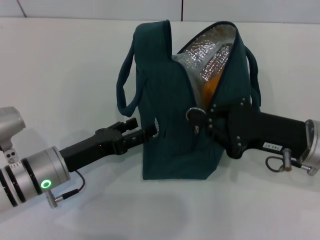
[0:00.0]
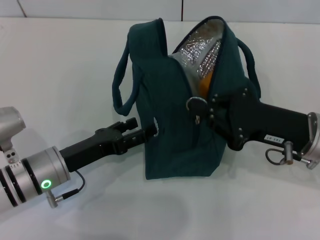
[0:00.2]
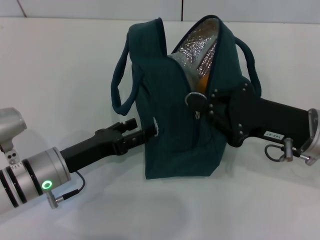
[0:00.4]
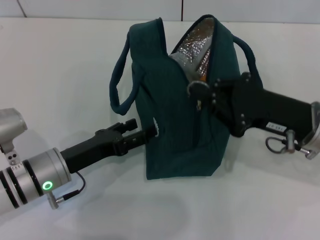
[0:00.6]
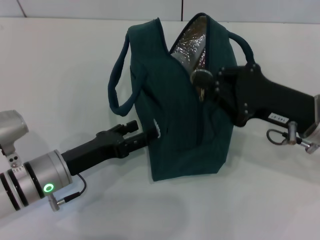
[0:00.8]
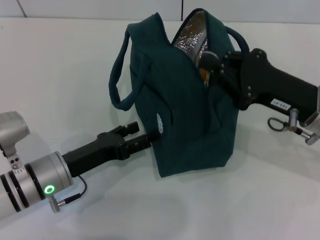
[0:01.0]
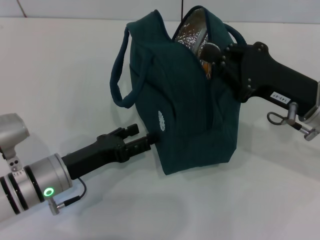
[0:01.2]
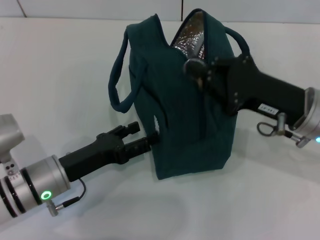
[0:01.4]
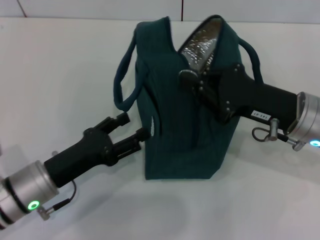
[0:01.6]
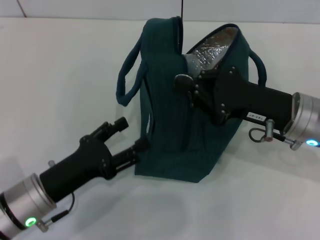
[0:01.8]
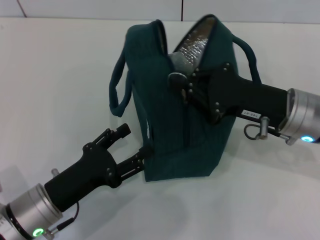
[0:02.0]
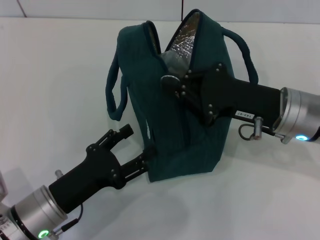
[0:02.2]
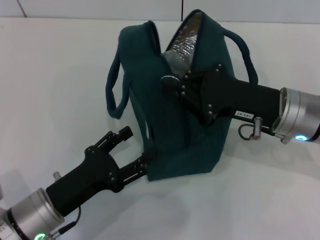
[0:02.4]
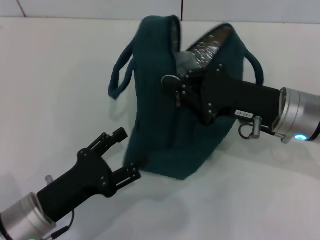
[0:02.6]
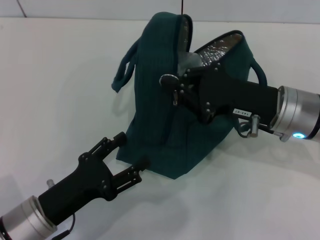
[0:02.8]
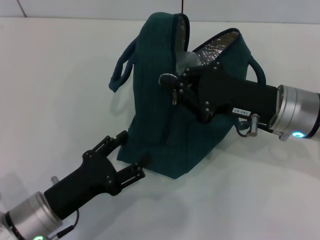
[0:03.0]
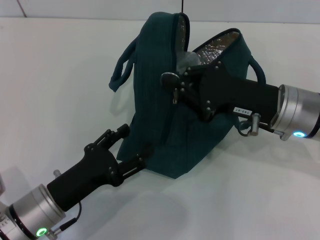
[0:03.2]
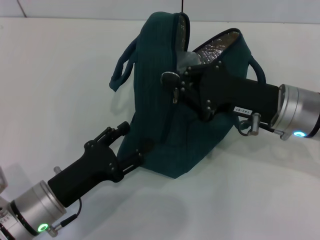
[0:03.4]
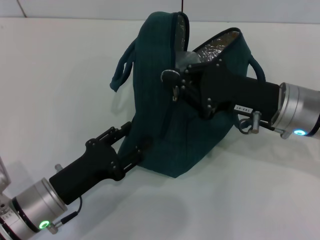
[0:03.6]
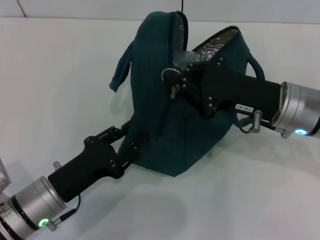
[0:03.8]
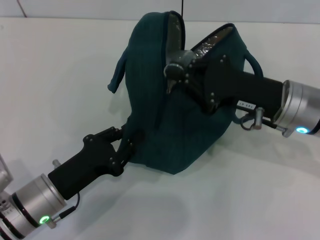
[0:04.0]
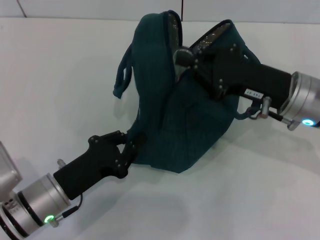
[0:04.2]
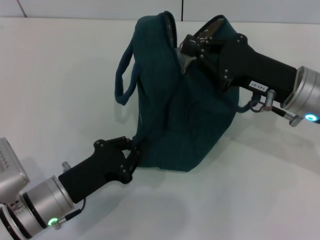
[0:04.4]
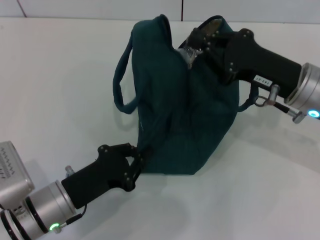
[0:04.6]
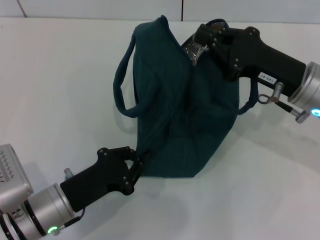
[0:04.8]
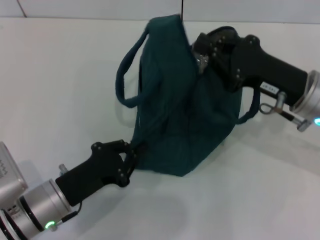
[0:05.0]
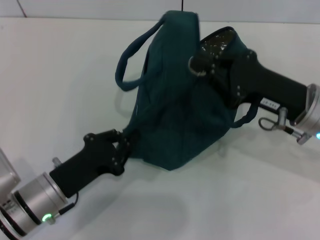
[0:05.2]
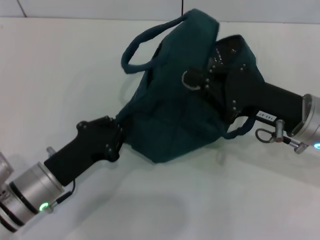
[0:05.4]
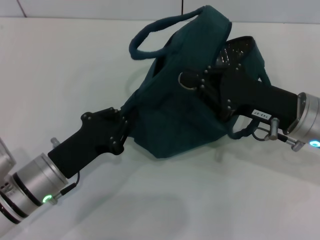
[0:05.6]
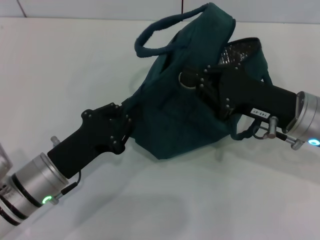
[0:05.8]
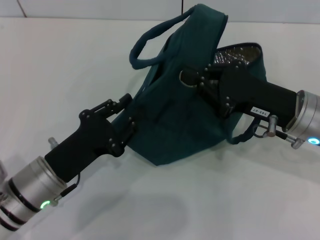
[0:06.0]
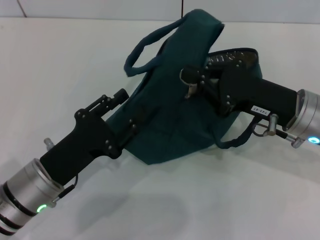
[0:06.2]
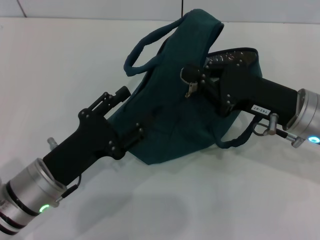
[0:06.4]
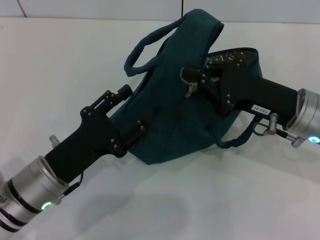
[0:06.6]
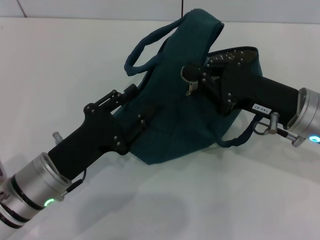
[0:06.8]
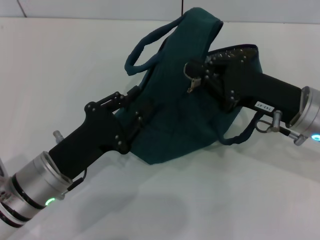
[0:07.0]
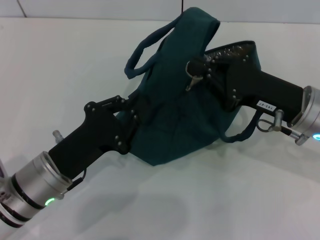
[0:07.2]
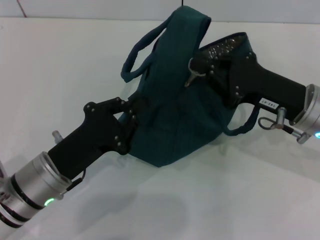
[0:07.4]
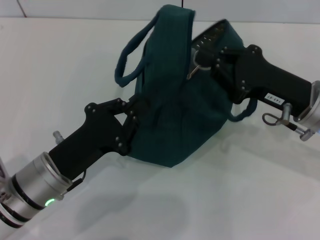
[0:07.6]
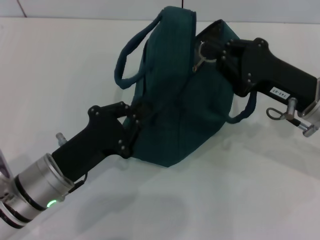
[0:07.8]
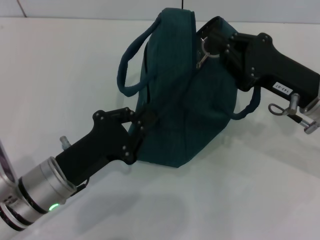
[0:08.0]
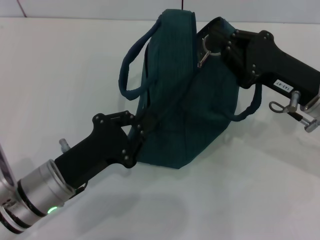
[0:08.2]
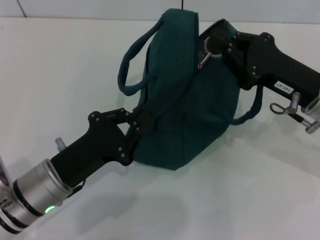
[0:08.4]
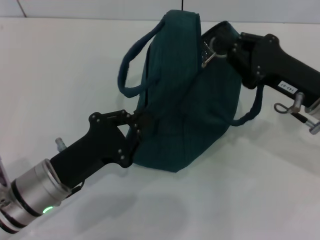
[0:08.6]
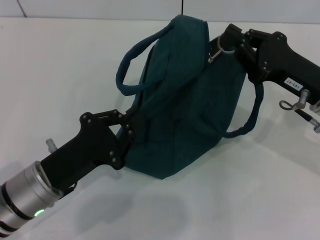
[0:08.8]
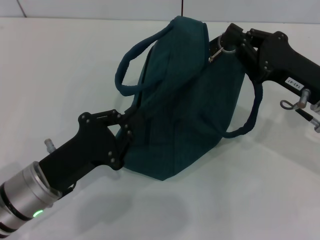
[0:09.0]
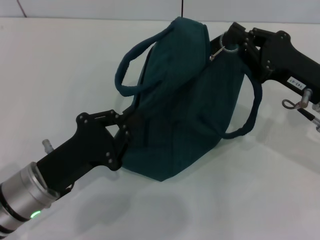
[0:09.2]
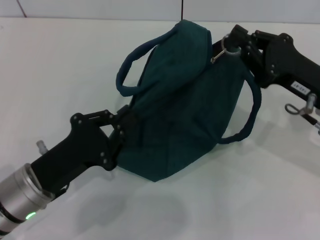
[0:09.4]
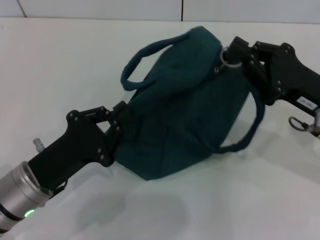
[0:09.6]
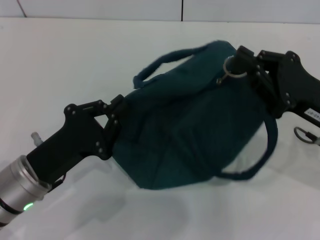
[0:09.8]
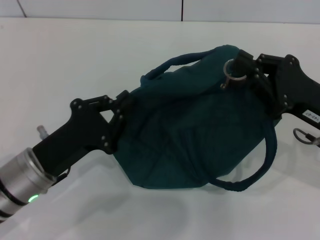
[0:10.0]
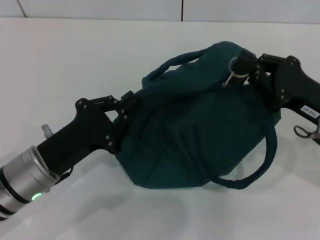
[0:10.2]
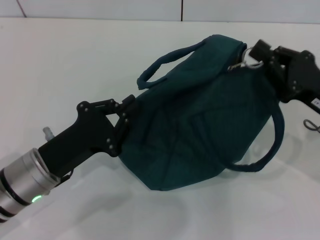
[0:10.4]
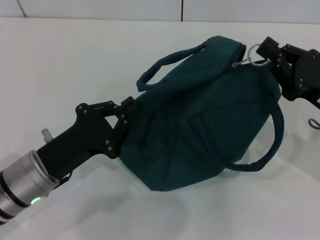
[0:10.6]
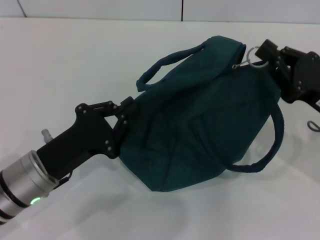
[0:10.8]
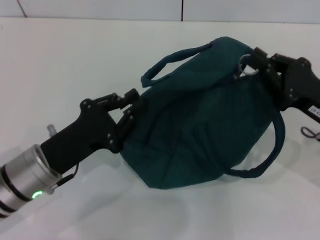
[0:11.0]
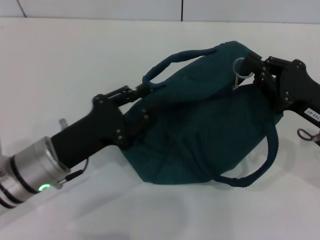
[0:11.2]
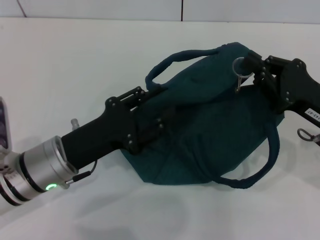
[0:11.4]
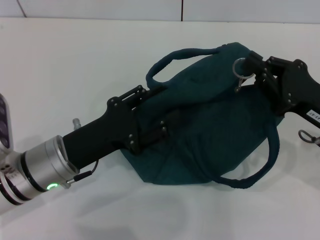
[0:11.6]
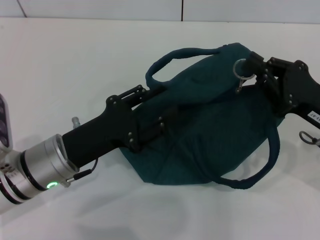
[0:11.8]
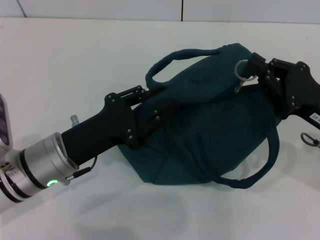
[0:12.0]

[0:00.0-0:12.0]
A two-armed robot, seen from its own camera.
0:03.0 to 0:04.4: The left gripper closes up.
0:06.0 to 0:07.6: The left gripper opens, then closes once more.
0:07.6 to 0:09.0: There are only small adjustments of the grippers.
0:10.4 to 0:12.0: The left gripper opens.

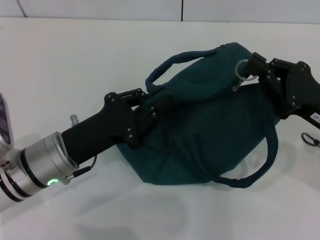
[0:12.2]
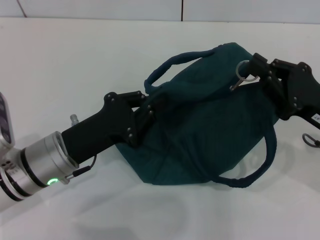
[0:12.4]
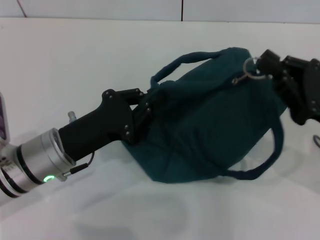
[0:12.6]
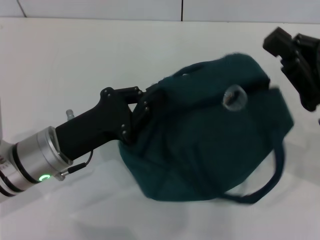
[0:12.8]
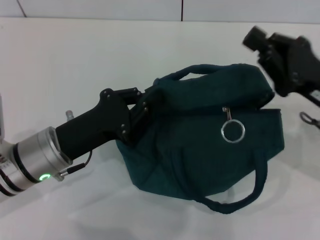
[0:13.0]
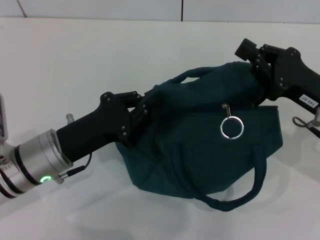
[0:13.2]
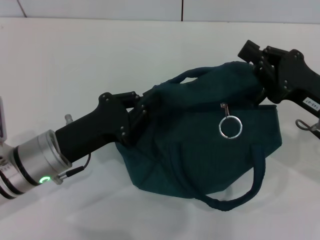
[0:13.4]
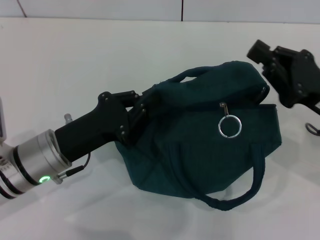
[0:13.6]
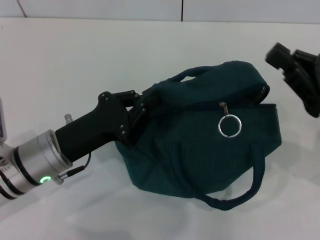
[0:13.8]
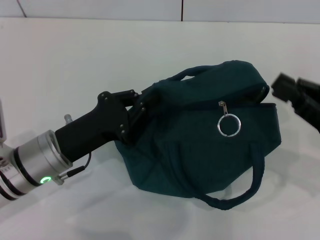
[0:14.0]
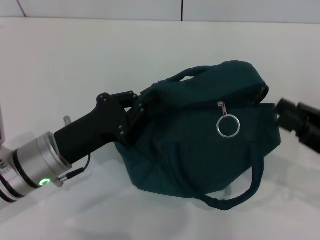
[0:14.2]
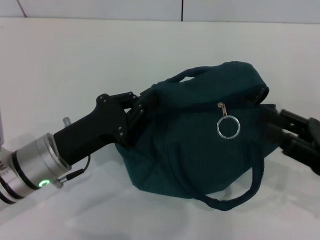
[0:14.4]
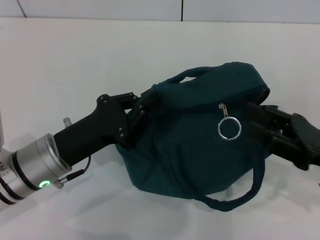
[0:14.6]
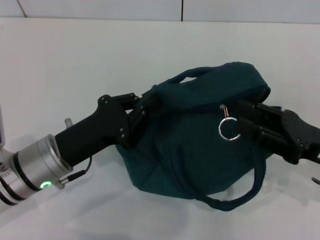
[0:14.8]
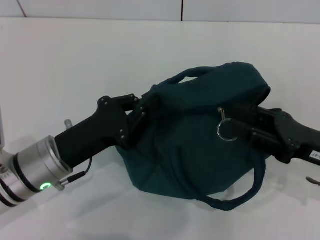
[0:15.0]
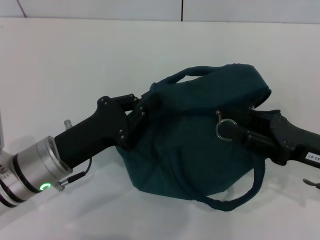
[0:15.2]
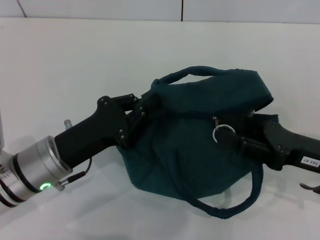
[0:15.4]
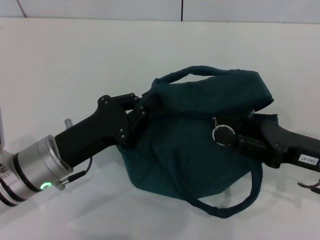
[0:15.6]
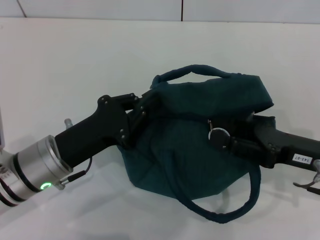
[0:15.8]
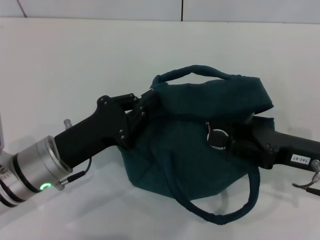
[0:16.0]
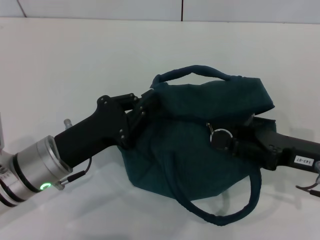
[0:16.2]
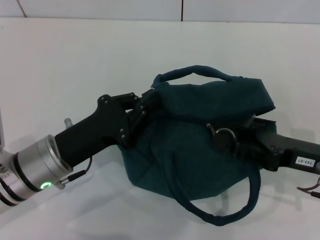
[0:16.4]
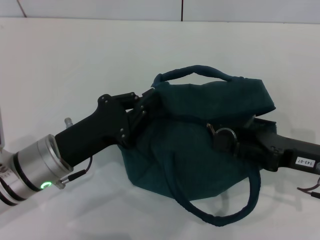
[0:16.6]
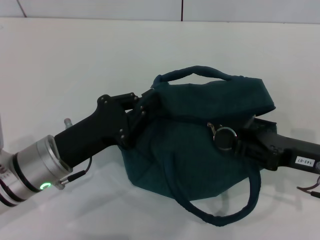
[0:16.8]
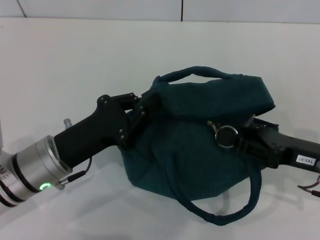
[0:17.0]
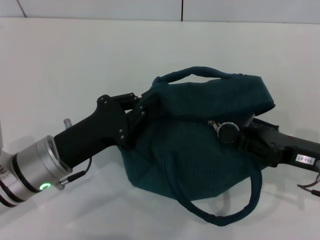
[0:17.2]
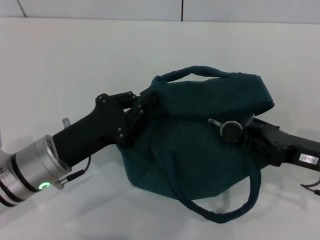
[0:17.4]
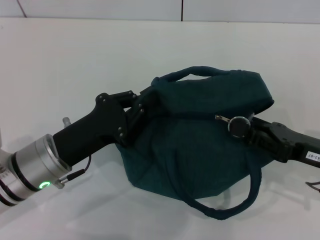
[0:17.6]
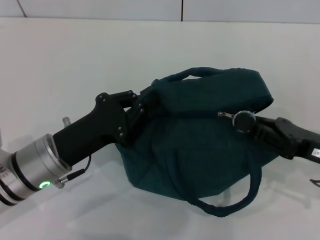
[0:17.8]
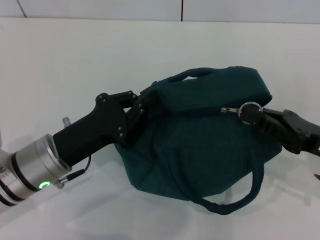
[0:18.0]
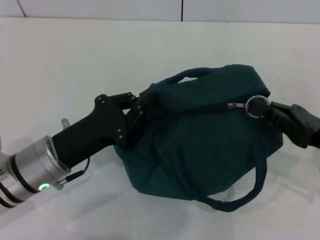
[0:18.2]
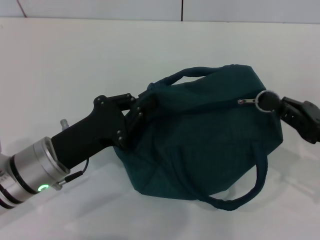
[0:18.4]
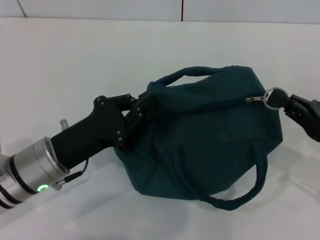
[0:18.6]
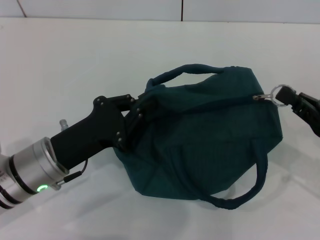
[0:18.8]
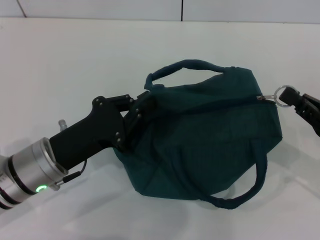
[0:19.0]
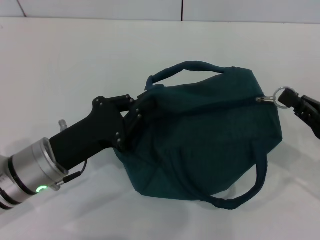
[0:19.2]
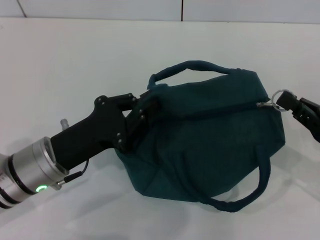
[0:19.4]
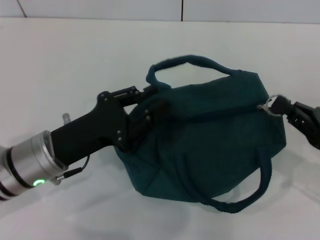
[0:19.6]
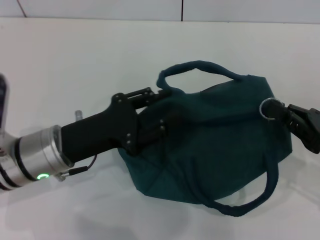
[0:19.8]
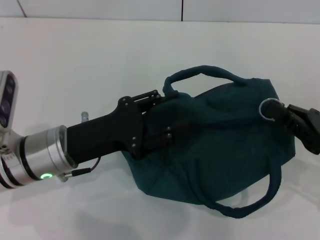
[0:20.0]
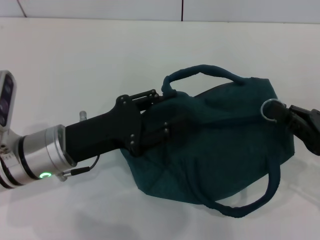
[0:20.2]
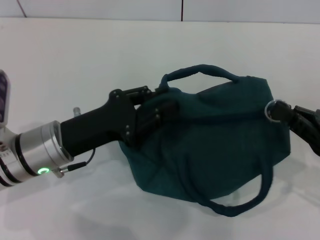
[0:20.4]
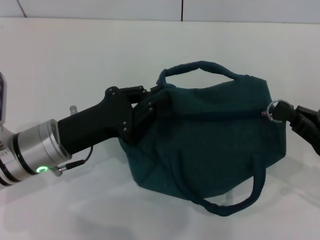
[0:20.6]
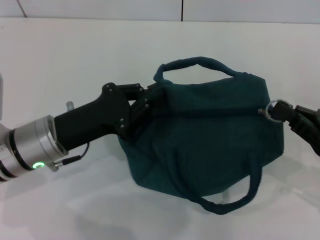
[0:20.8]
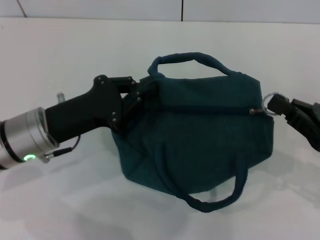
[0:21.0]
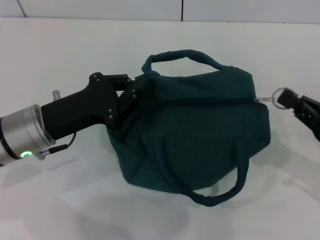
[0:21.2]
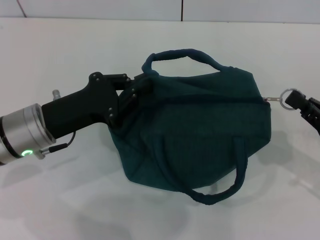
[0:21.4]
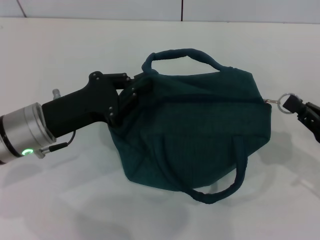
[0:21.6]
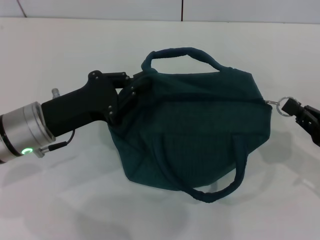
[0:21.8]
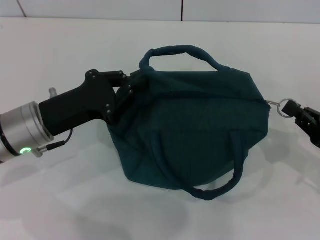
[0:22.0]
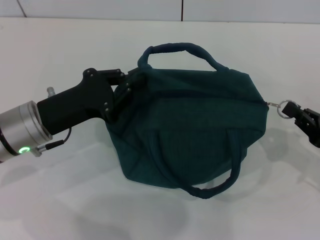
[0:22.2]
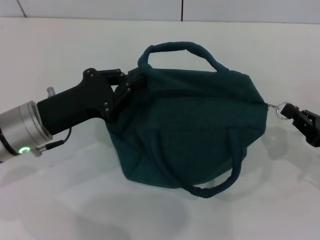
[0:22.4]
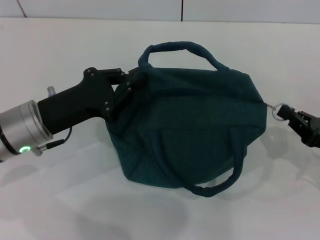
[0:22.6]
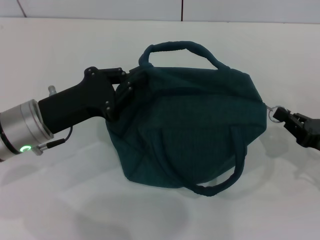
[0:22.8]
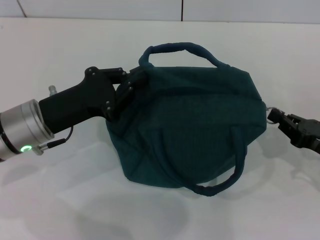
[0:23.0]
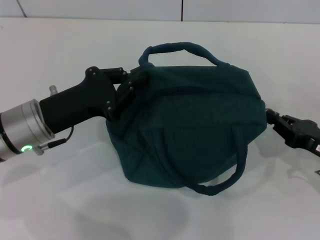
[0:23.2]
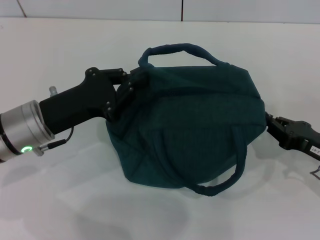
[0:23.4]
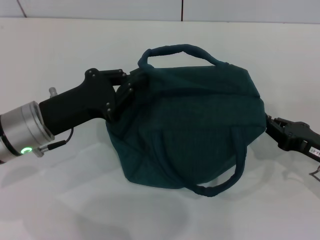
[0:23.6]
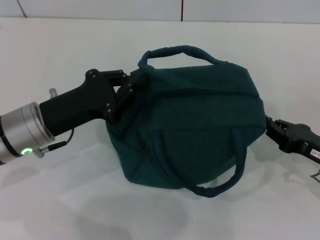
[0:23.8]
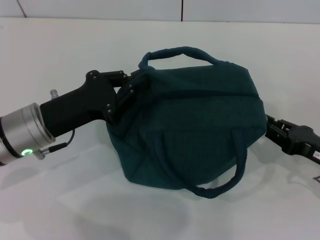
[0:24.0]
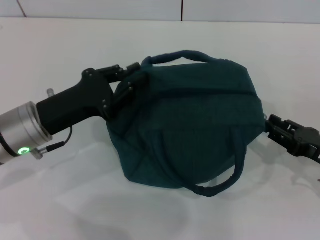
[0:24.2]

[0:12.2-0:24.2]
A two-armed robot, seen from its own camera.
Step, 0:12.2 to 0:24.2: Zip up the lunch bag with your right hand.
0:12.2 to 0:13.8: The left gripper closes.
0:13.8 to 0:15.2: The right gripper opens.
0:15.2 to 0:16.6: The grippers make only small movements.
0:16.6 to 0:18.2: The right gripper closes its fingers.
0:18.2 to 0:19.8: The grippers make only small movements.
0:19.8 to 0:21.2: The left gripper opens and closes again.
0:21.2 to 0:22.6: The grippers make only small movements.
0:22.6 to 0:24.2: The right gripper opens.
